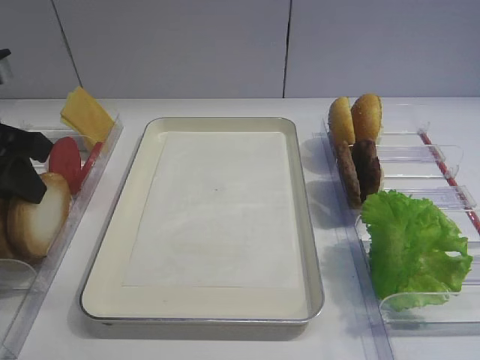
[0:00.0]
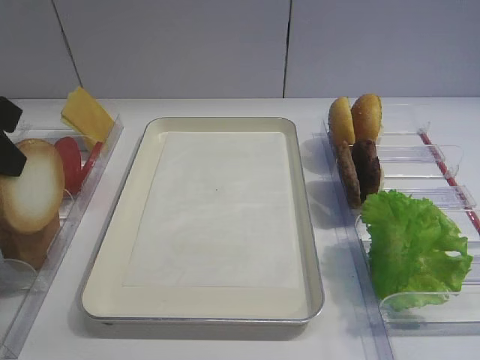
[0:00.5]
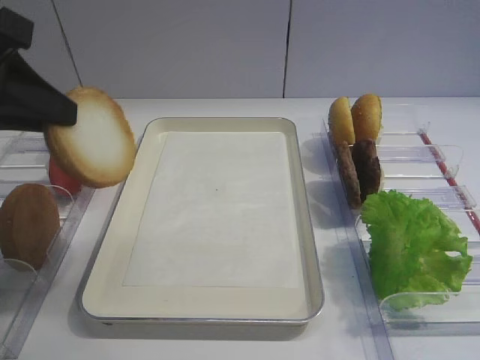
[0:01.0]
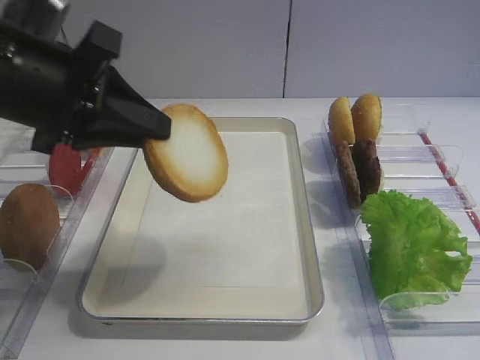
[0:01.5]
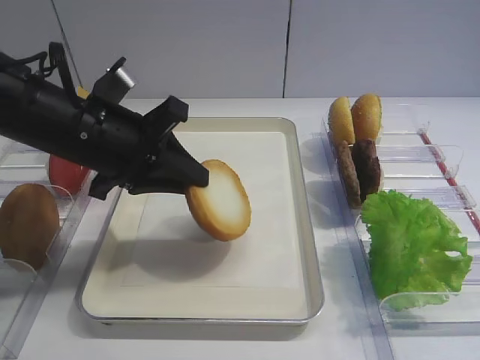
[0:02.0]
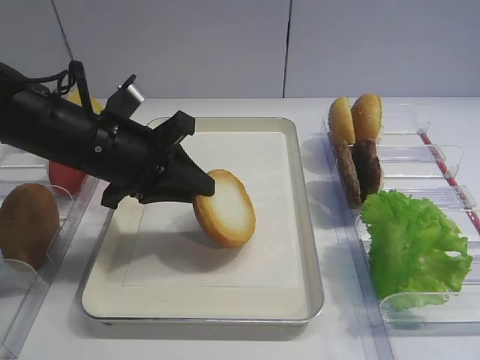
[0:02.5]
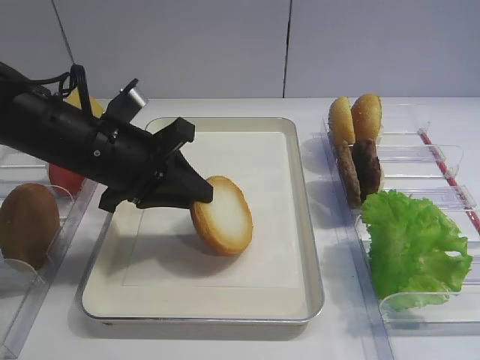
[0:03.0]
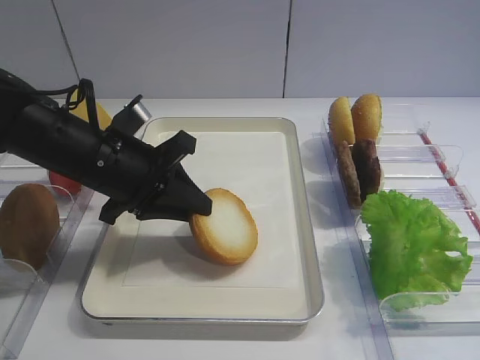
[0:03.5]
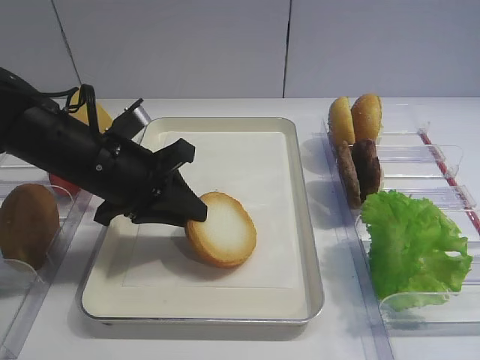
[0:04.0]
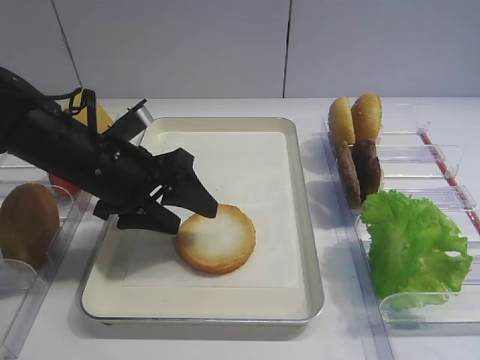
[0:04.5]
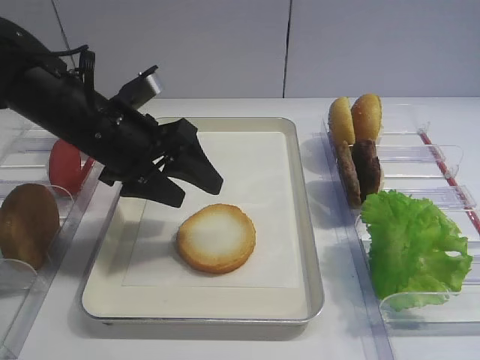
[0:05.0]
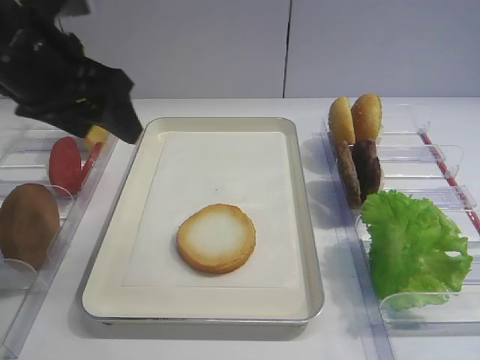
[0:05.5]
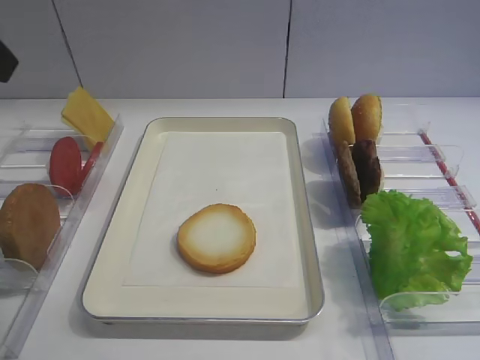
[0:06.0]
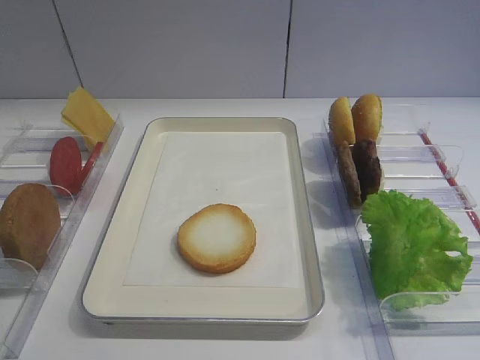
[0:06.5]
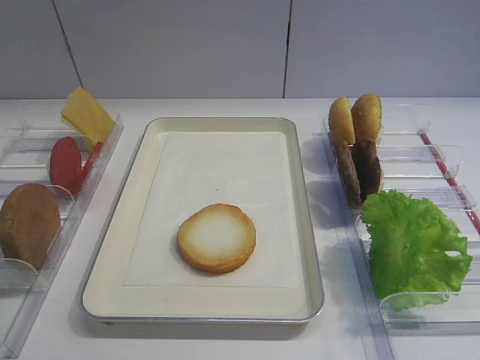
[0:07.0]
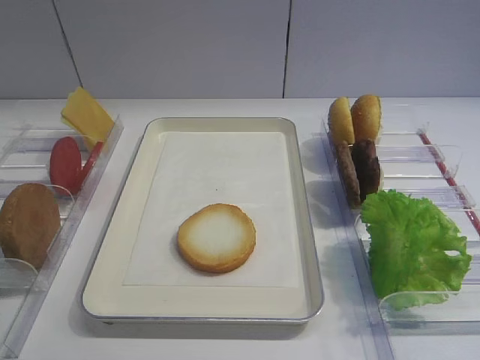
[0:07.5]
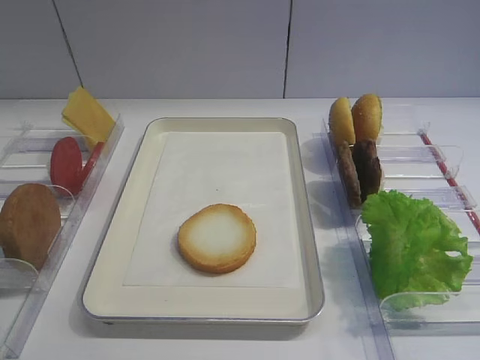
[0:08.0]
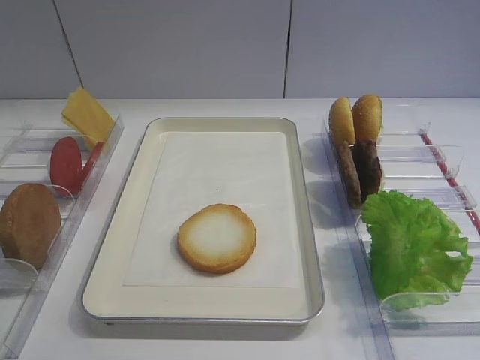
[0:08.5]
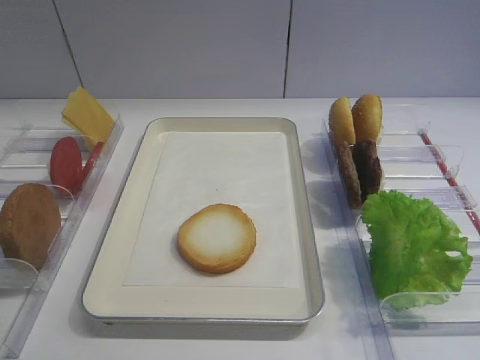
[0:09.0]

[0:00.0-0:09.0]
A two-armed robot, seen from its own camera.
Step, 0:01.0 to 0:04.5: Place the bread slice on the tray with the left gripper.
0:00.0 to 0:02.0: The left gripper heads to the right, covering about 10 cm.
0:02.0 to 0:04.5: The left gripper moves approximately 5 cm, and opens.
0:04.5 to 0:07.0: The left gripper moves backward, to the left and upward, some 35 cm.
